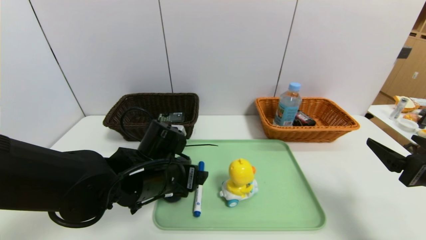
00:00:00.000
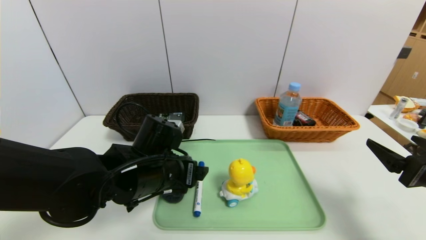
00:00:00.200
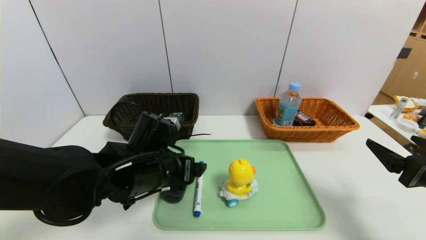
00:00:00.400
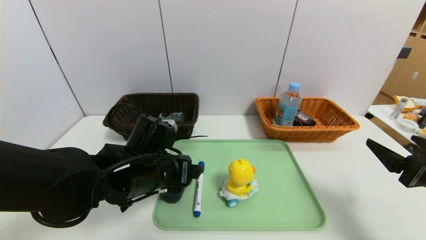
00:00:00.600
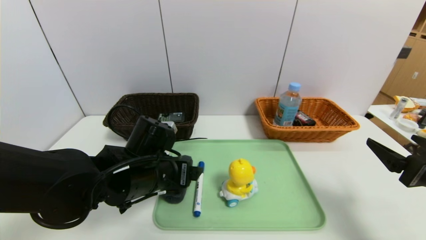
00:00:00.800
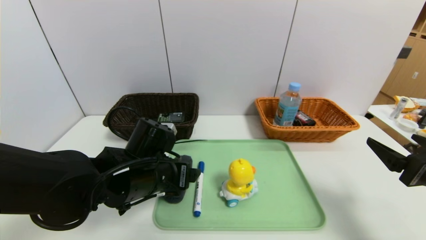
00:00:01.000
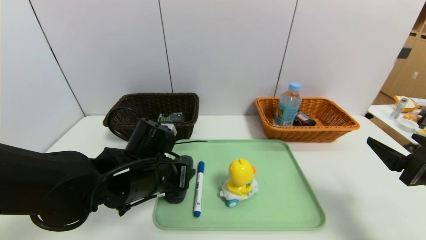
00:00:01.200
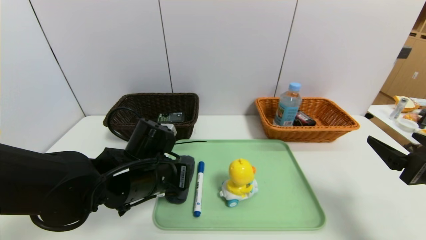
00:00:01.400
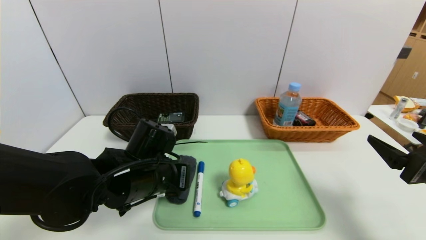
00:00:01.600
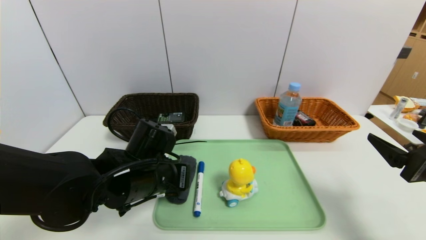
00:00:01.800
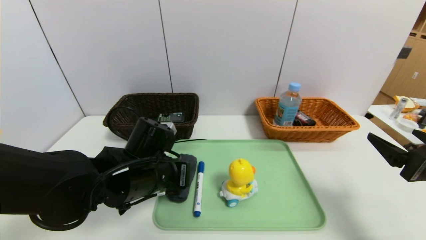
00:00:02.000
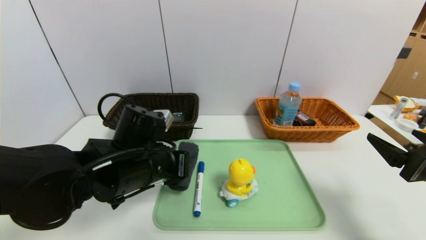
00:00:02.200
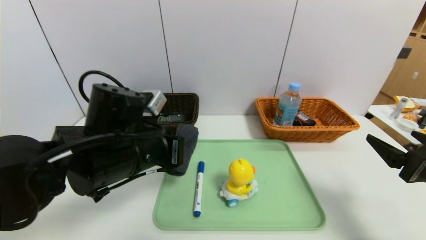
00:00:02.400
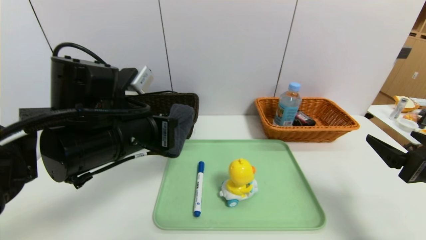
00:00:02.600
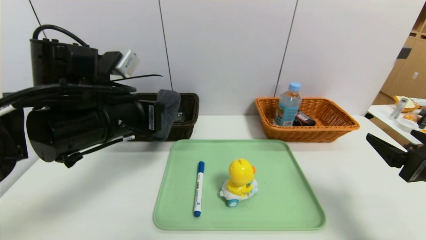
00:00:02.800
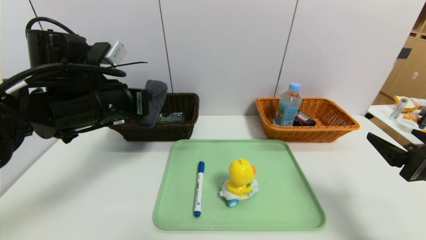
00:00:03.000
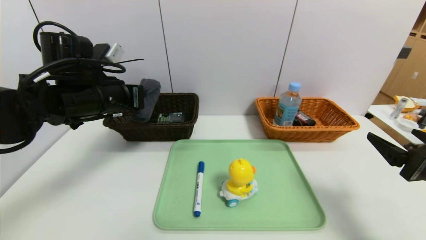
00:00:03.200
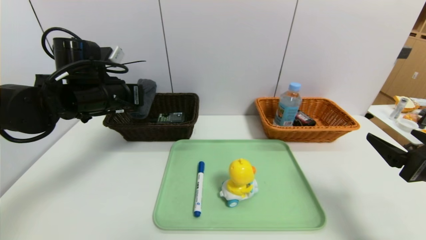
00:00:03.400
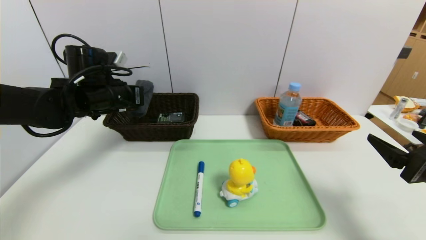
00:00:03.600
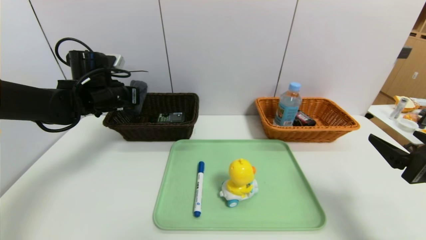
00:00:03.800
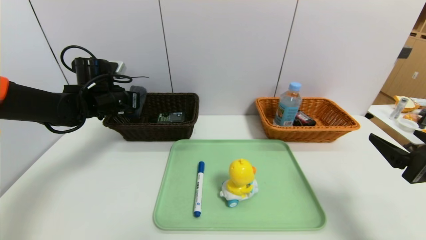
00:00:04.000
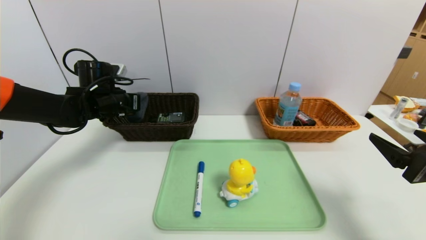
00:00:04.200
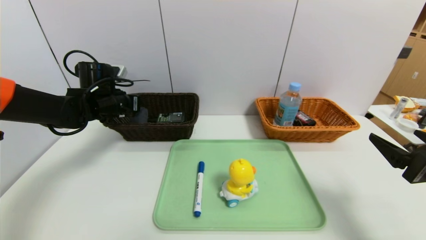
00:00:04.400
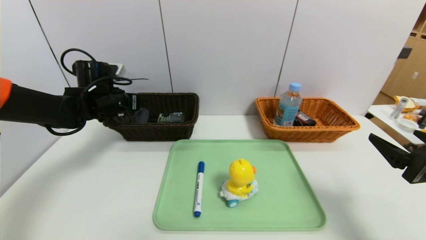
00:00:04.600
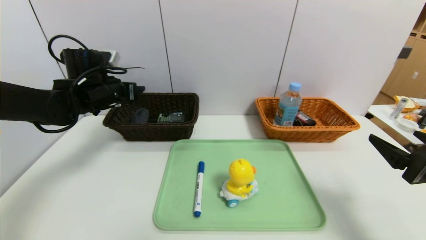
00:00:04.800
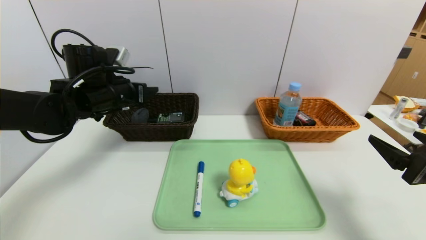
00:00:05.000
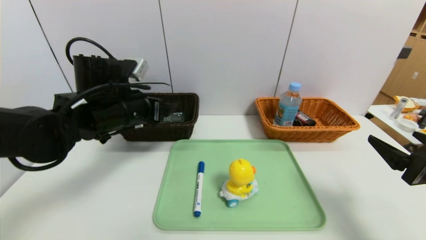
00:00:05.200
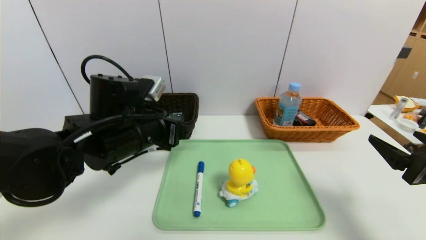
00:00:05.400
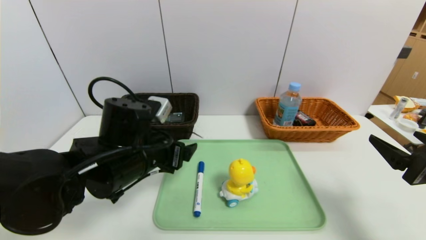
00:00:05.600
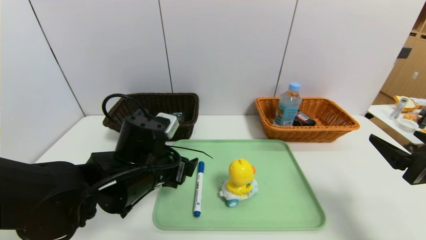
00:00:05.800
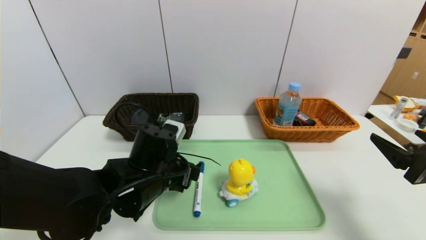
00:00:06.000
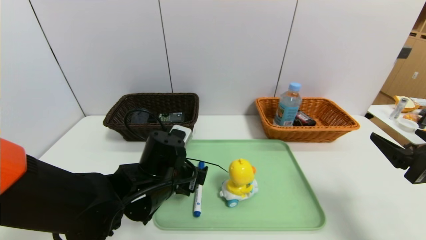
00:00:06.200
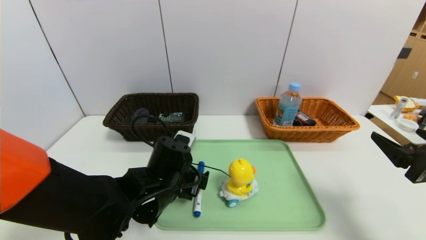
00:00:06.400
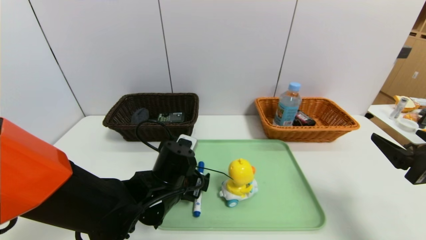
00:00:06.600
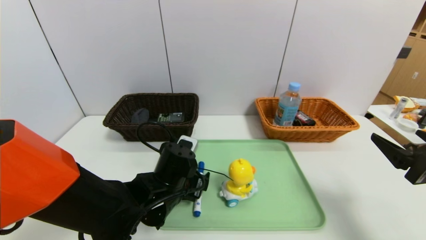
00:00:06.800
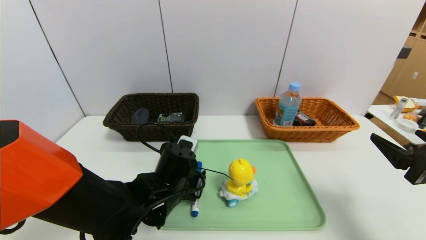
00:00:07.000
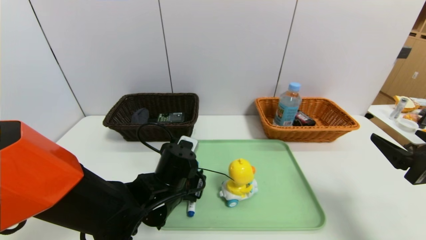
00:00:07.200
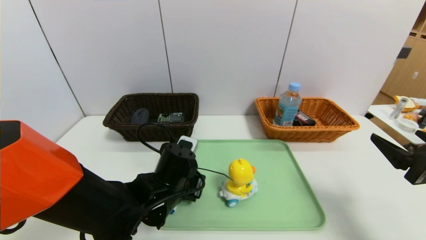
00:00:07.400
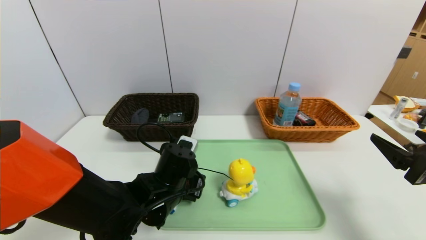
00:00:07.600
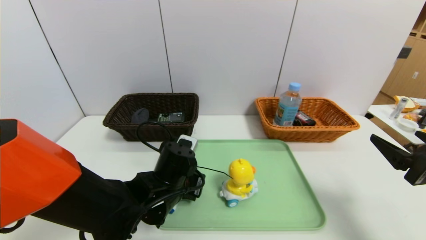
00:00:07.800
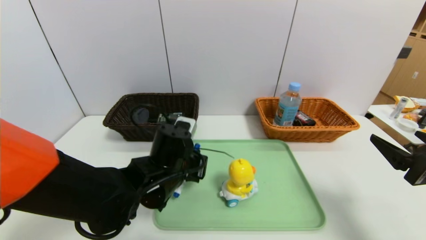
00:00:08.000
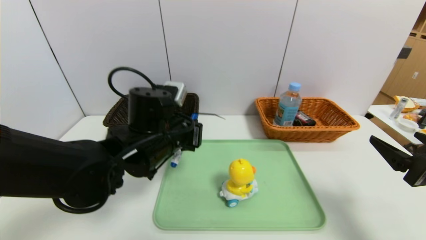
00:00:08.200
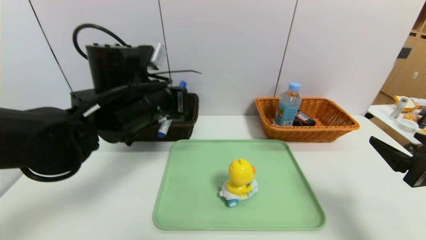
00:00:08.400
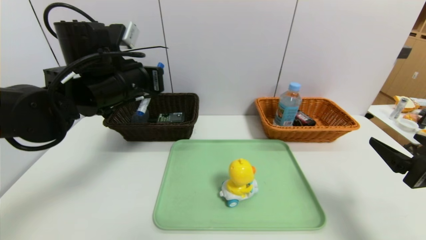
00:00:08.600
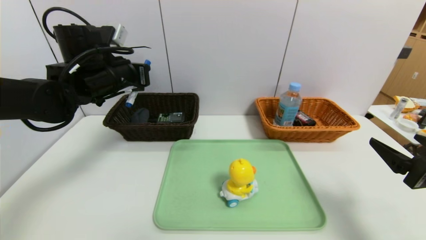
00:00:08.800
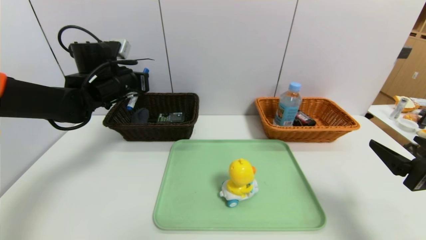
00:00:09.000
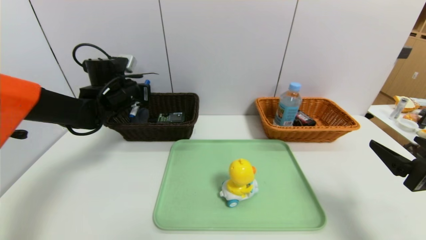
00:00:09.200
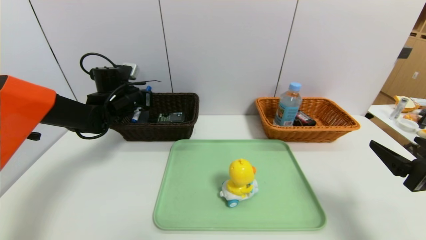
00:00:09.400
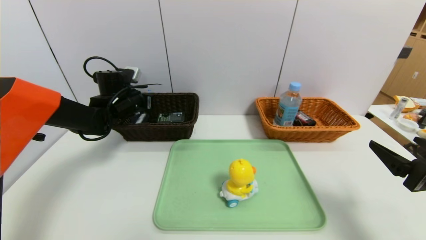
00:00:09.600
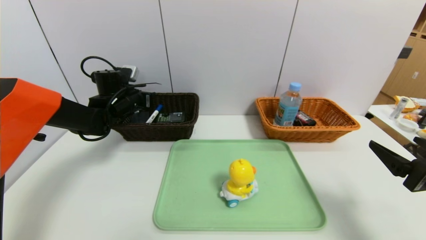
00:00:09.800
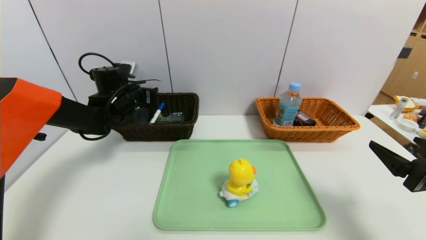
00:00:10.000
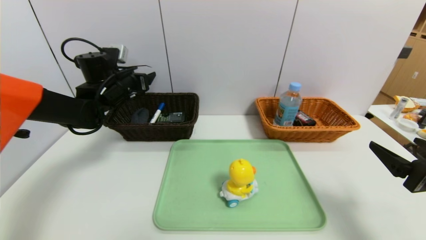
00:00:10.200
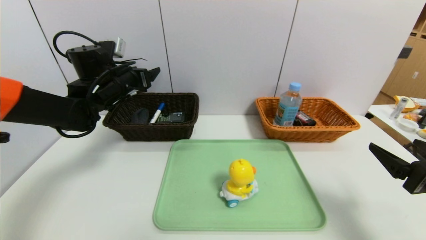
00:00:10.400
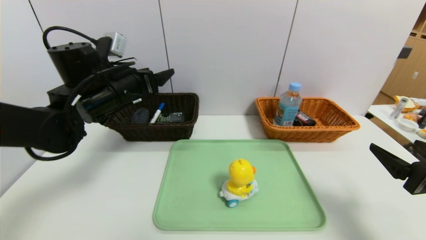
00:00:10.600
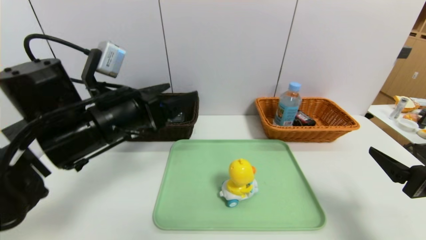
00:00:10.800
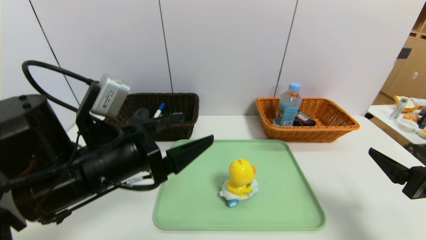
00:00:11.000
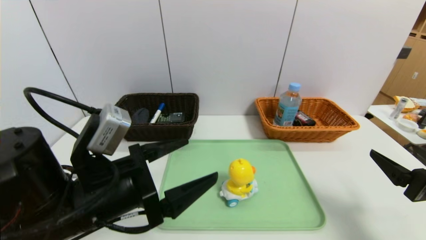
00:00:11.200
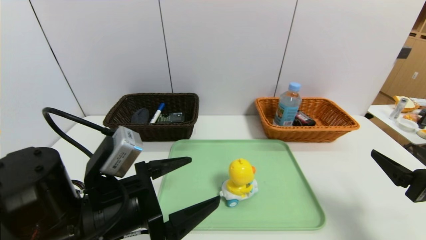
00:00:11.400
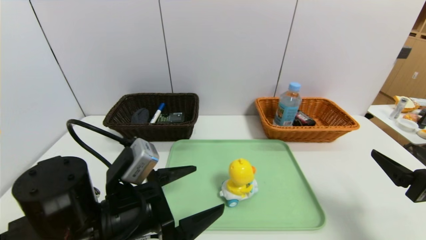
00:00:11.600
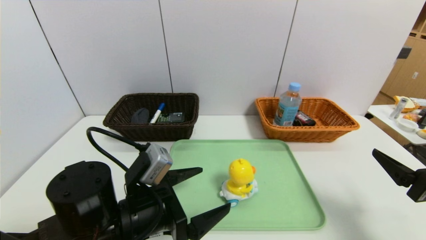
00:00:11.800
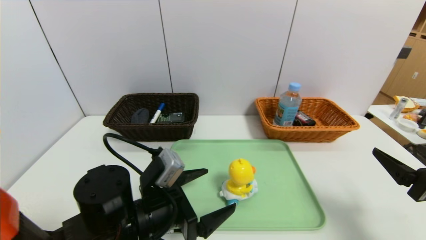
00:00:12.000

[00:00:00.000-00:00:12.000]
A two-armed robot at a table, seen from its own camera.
Task of the whole recording: place the food in the right basket with the right gripper, and place the non food items in the left basket with the left gripper.
Step, 00:00:00.000 to 00:00:05.000: Grasp the glasses case and put it in the left basket.
Step, 00:00:05.200 to 00:00:10.200: Grasp the blue marker and put it in the left basket.
00:00:00.000 to 00:00:01.600: The left gripper closes up.
00:00:01.600 to 00:00:03.000: The left gripper goes roughly 15 cm upward and to the left.
00:00:03.000 to 00:00:04.400: The left gripper is displaced forward, to the left and downward by roughly 15 cm, and opens up.
00:00:04.400 to 00:00:06.000: The left gripper heads backward and to the right, covering approximately 25 cm, and opens its fingers.
00:00:06.000 to 00:00:07.600: The left gripper moves about 5 cm, and closes its fingers.
00:00:07.600 to 00:00:09.000: The left gripper goes about 25 cm upward, forward and to the left.
00:00:09.000 to 00:00:10.400: The left gripper opens up.
00:00:10.400 to 00:00:12.000: The left gripper is displaced backward, downward and to the right by about 25 cm.

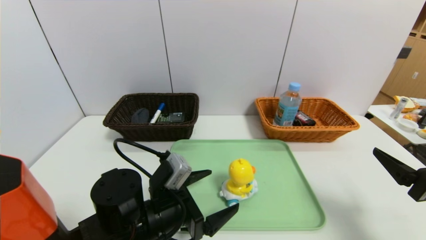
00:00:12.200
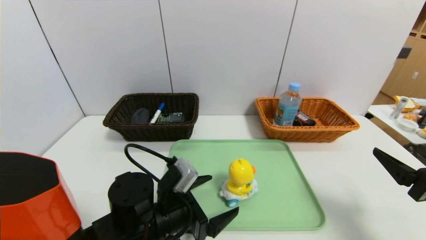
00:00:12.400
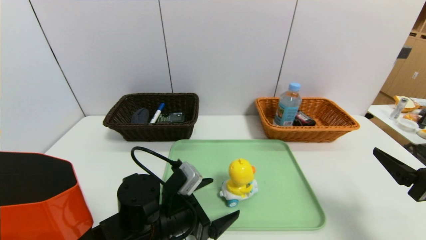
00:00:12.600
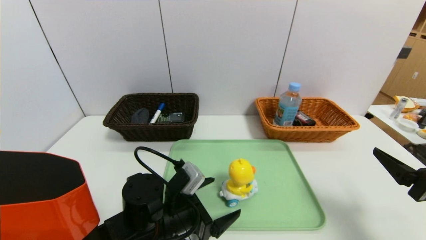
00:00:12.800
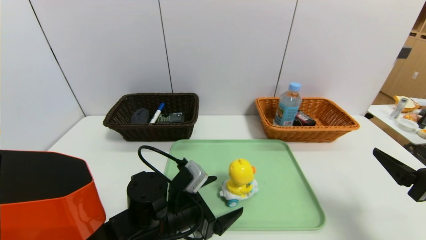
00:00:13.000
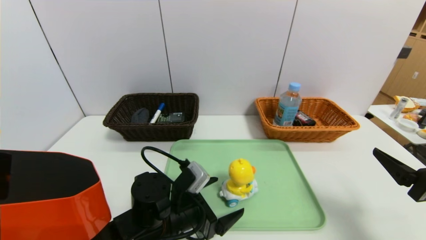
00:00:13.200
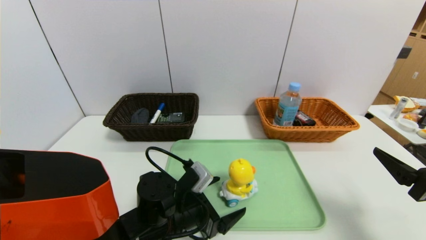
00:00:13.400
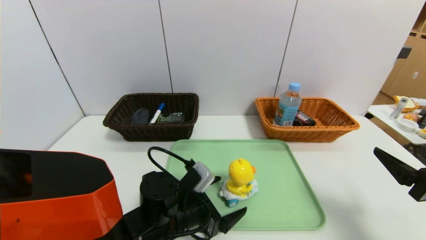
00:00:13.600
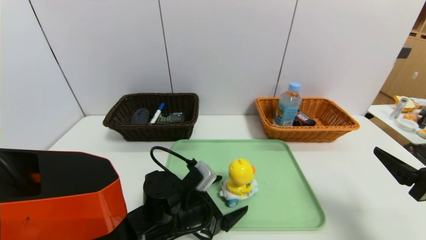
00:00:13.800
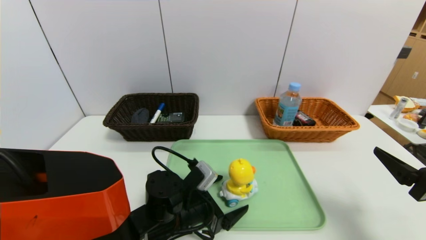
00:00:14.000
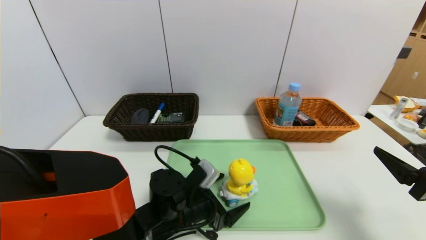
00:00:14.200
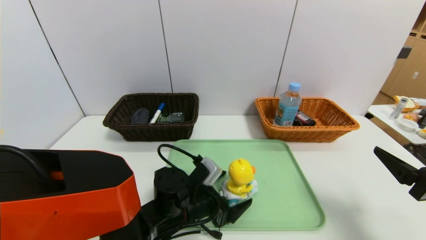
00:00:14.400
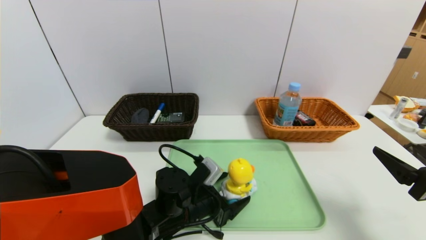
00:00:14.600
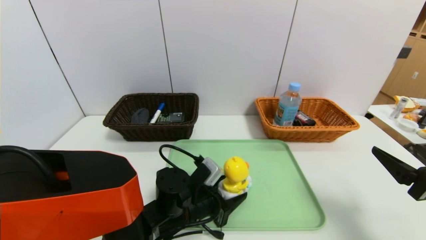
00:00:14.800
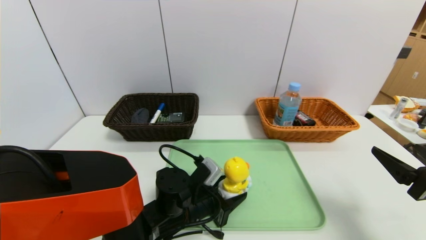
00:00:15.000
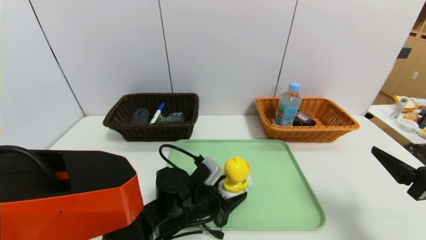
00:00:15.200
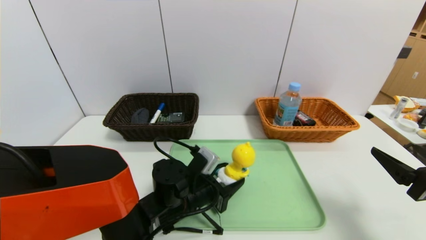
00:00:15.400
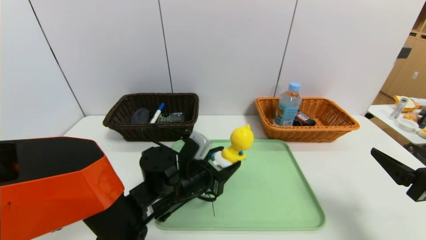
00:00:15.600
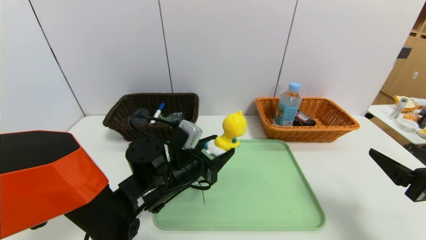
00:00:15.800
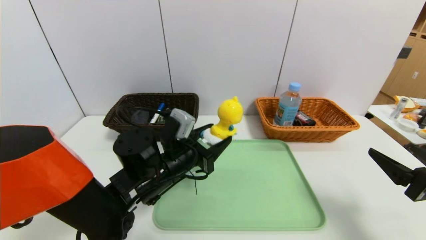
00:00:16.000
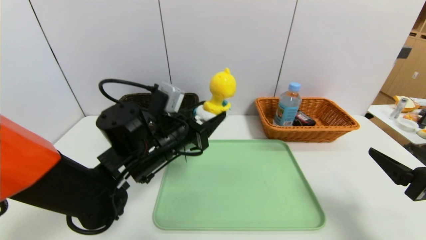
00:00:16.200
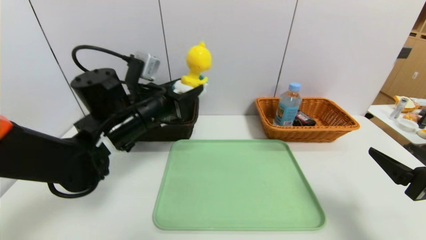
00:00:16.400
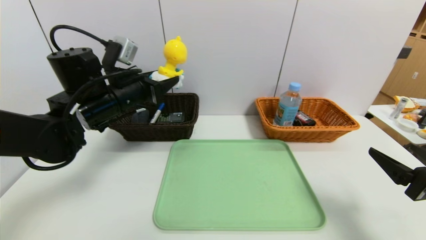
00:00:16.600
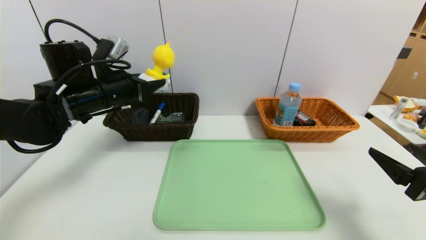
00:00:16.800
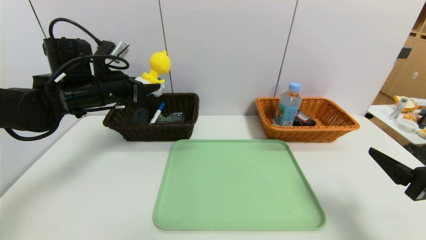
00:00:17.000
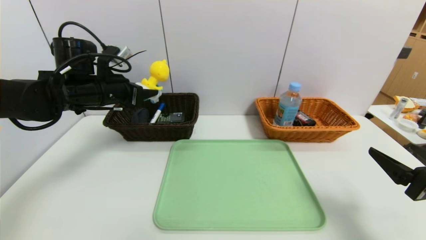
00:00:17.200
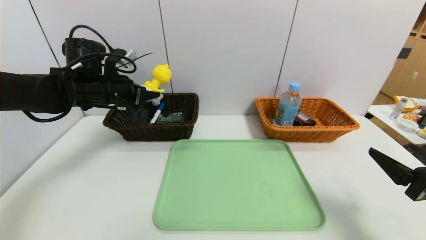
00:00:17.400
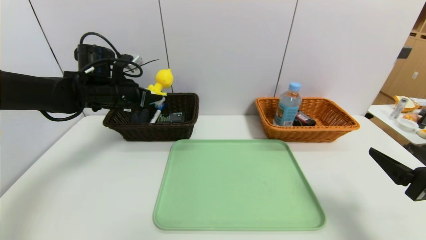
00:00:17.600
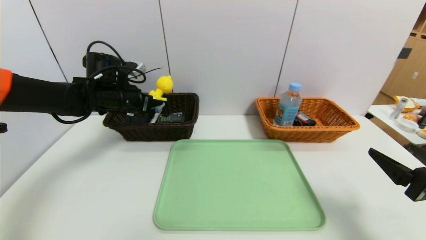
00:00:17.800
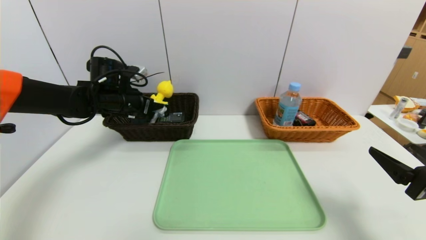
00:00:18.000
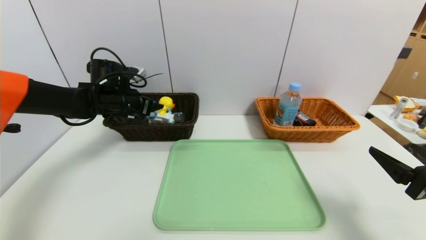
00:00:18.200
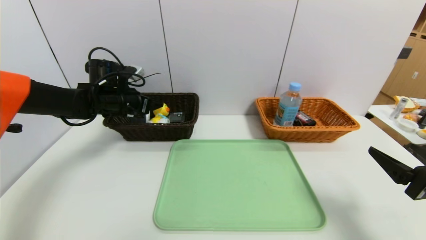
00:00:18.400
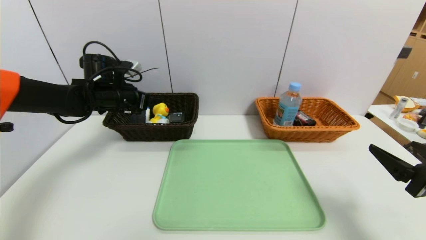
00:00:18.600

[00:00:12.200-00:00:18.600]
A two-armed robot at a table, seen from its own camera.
Task of the whole recording: place the food in the right basket with the right gripper, and place the non food items in the left basket with the left gripper.
00:00:12.200 to 00:00:13.800: The left gripper ends up about 5 cm from where it was.
00:00:13.800 to 00:00:15.400: The left gripper closes its fingers.
00:00:15.400 to 00:00:17.000: The left gripper is displaced upward, to the left and forward by about 25 cm.
00:00:17.000 to 00:00:18.600: The left gripper heads forward, covering about 5 cm.
